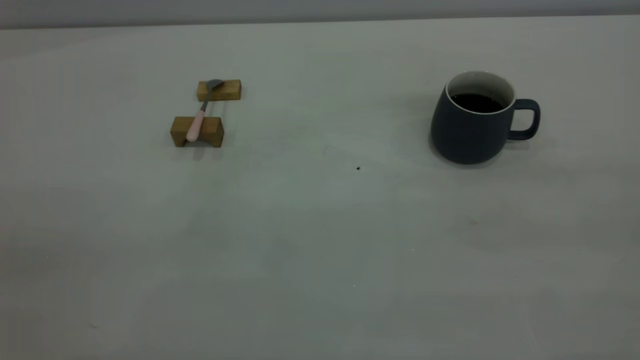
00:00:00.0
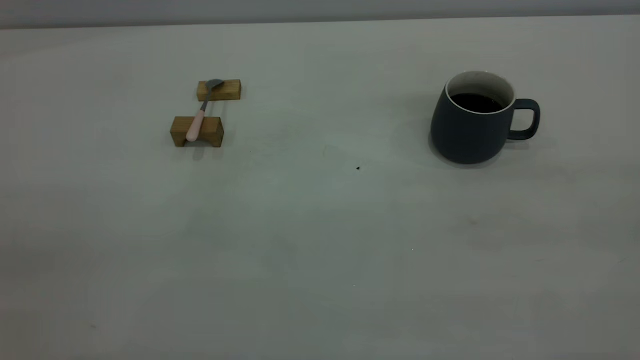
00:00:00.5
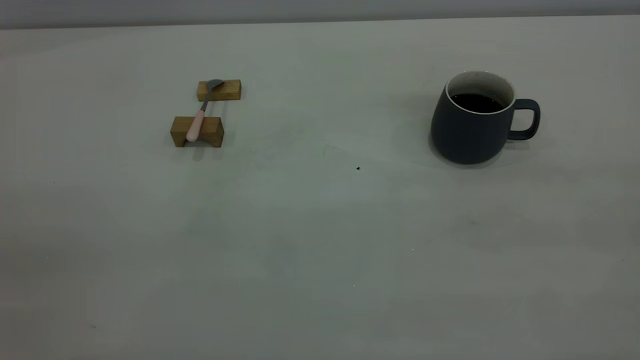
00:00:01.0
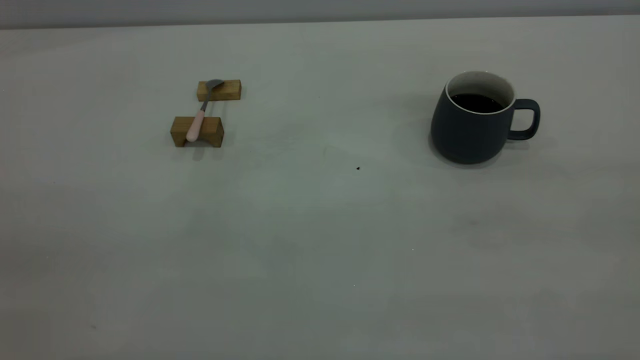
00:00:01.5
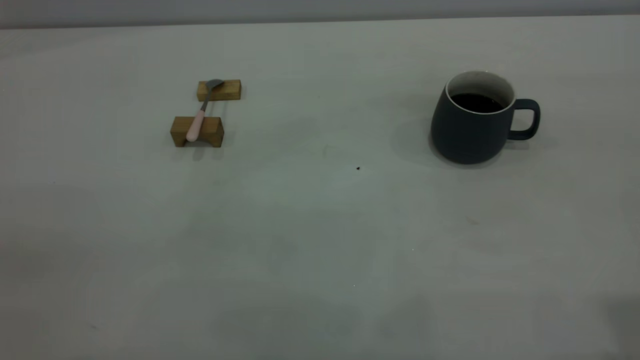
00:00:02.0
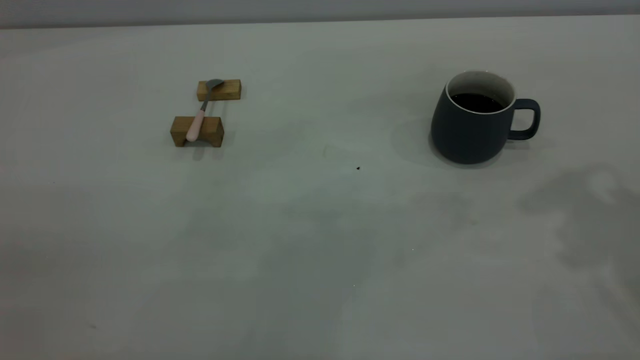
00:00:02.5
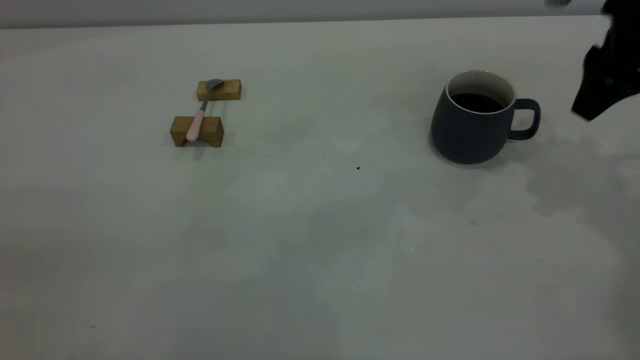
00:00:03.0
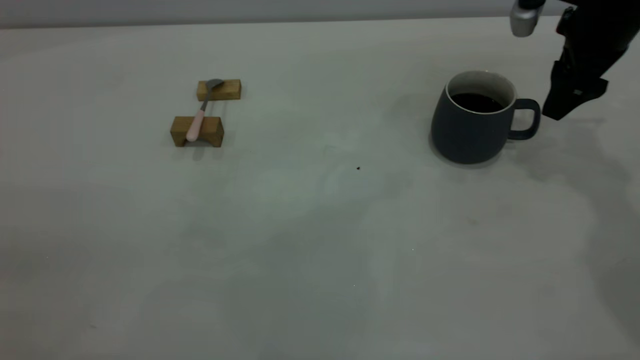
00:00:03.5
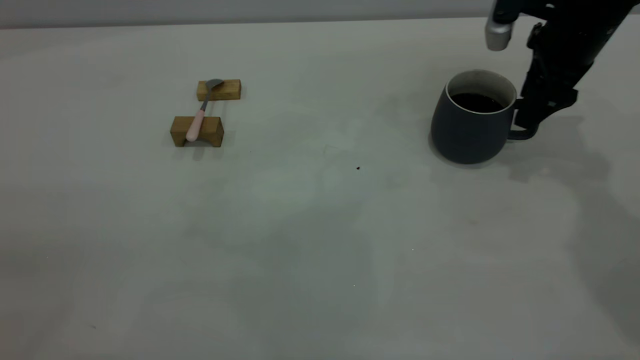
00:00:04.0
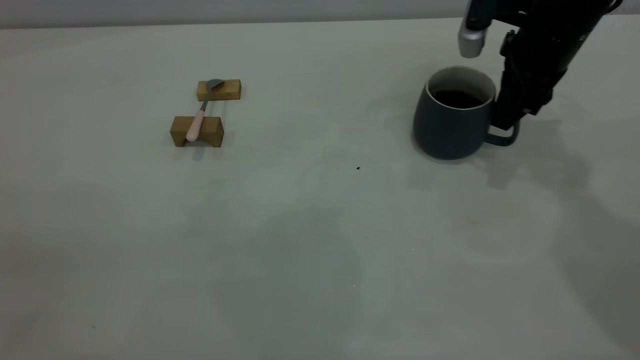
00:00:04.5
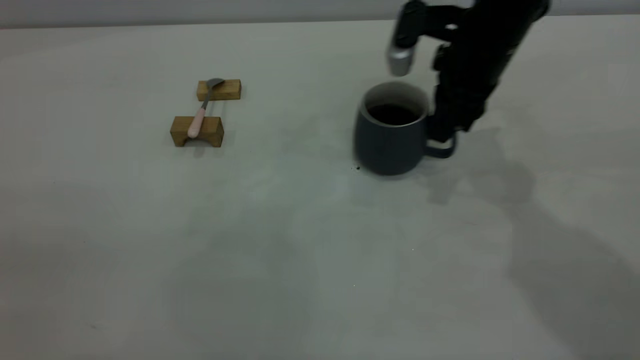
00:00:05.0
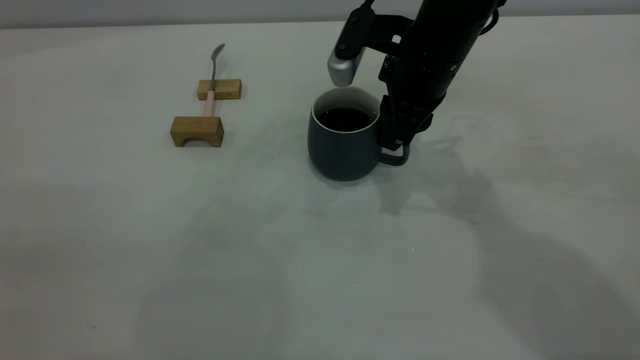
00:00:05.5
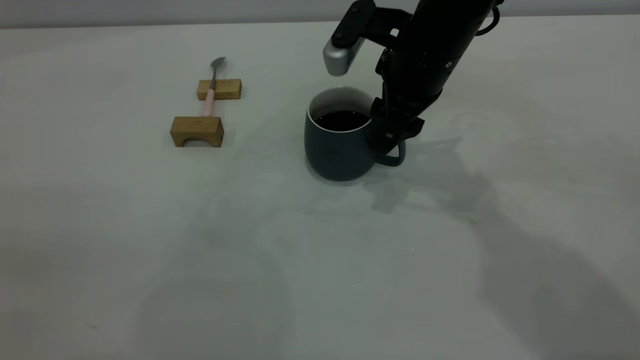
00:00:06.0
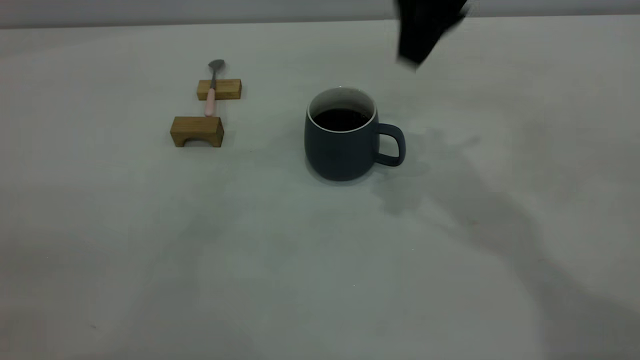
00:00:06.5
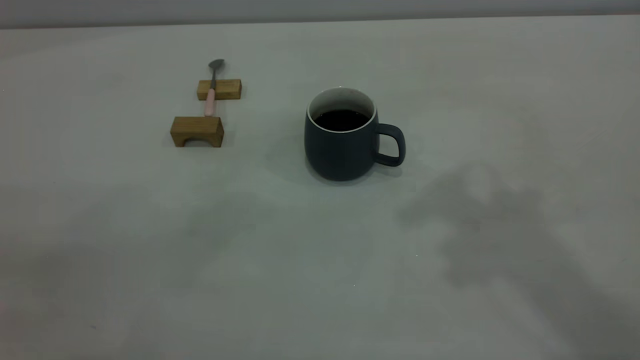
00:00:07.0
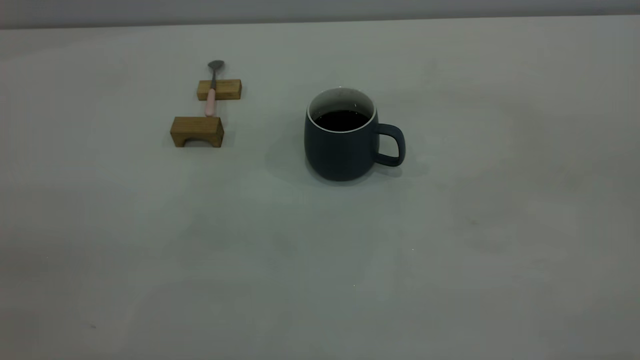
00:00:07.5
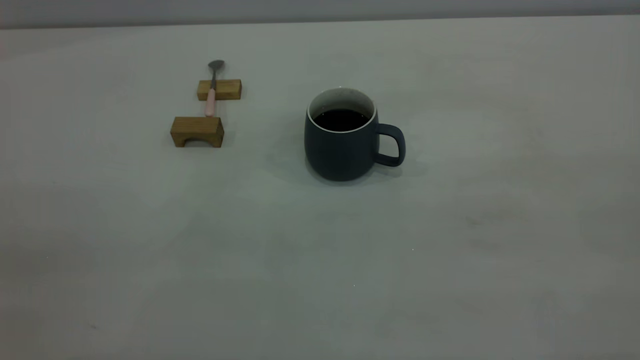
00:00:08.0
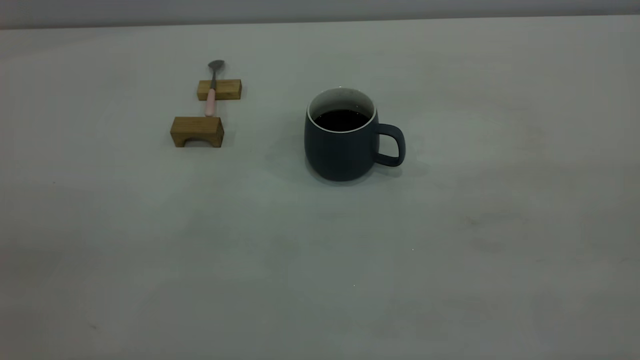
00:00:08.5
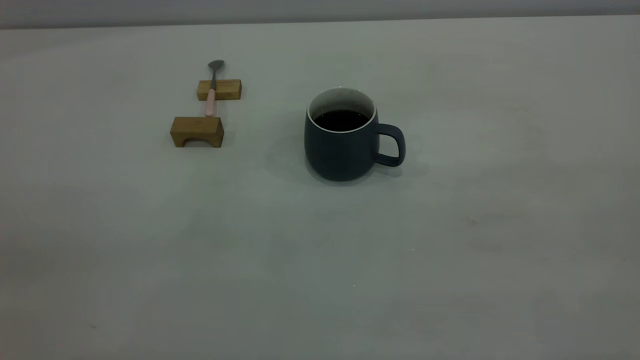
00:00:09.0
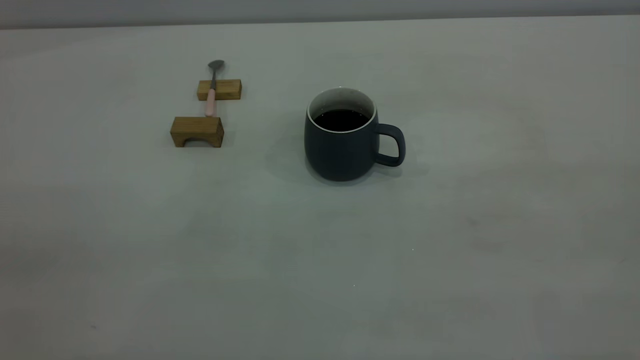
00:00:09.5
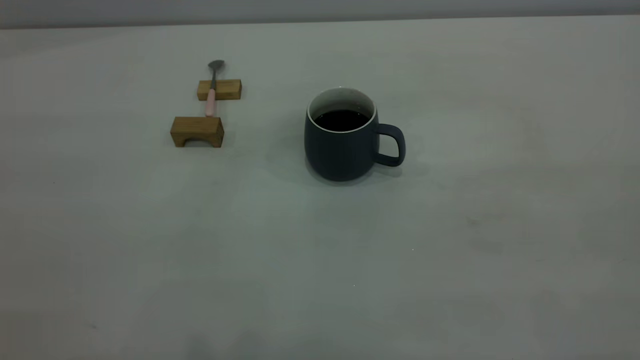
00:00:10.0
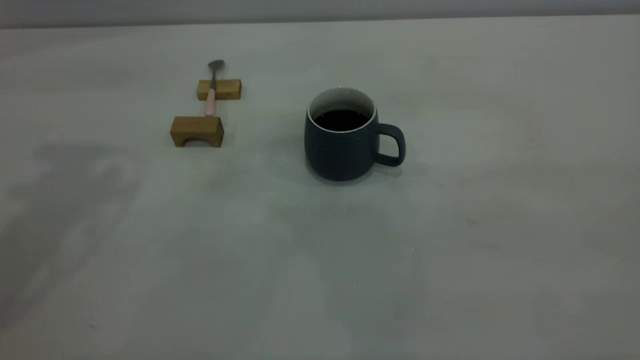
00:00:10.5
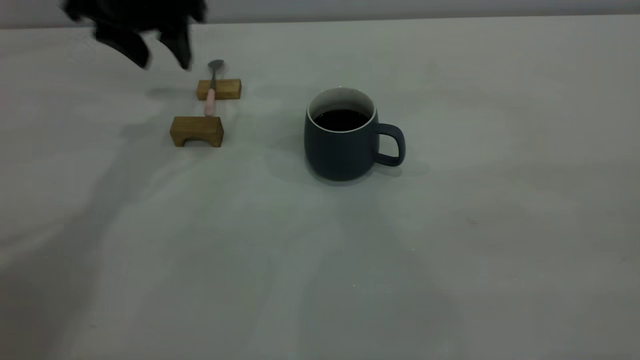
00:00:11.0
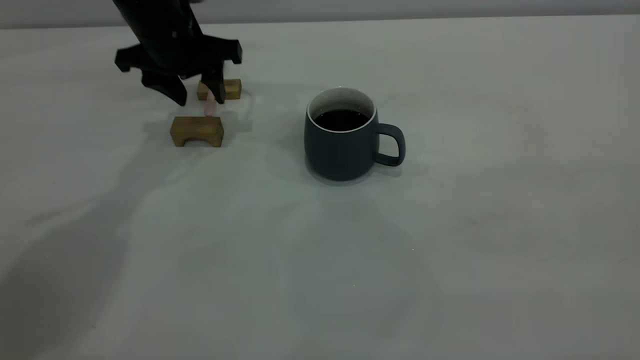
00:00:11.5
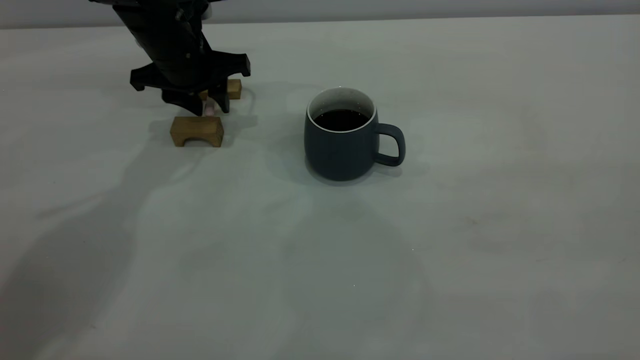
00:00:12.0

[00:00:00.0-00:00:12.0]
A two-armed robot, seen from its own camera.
Step, 00:00:00.0 to 00:00:06.0: Move the cup with coffee to the center of view.
00:00:02.0 to 00:00:04.0: The right gripper goes about 40 cm forward and downward.
00:00:04.0 to 00:00:06.0: The right gripper goes roughly 15 cm to the left, and closes, then reopens.
00:00:06.0 to 00:00:08.0: The right gripper moves backward, upward and to the right, about 50 cm.
00:00:10.0 to 00:00:12.0: The left gripper shifts about 50 cm forward and downward.

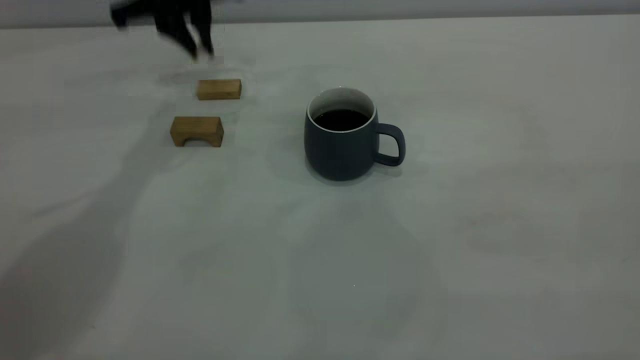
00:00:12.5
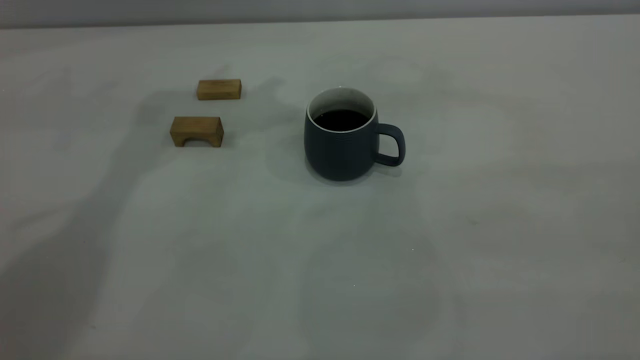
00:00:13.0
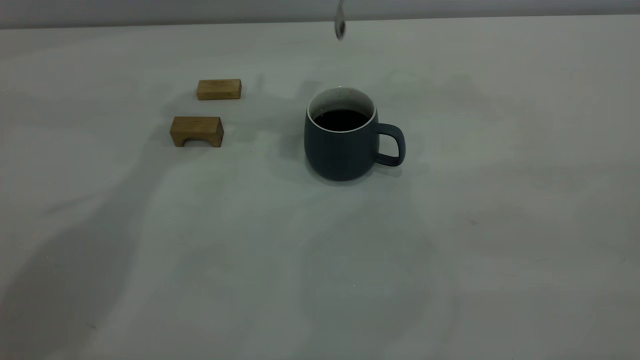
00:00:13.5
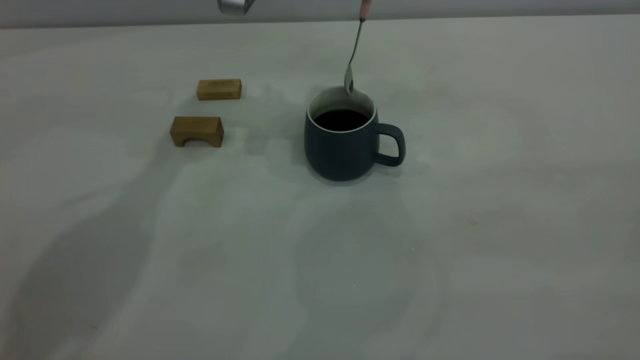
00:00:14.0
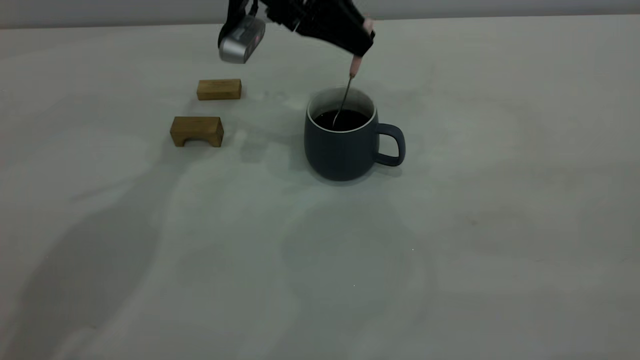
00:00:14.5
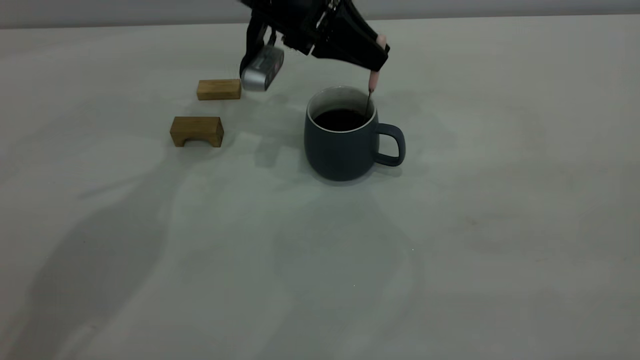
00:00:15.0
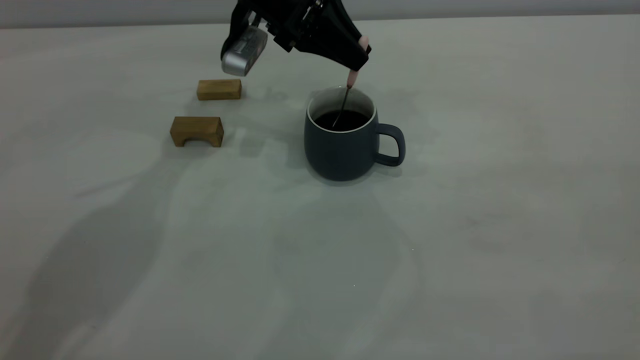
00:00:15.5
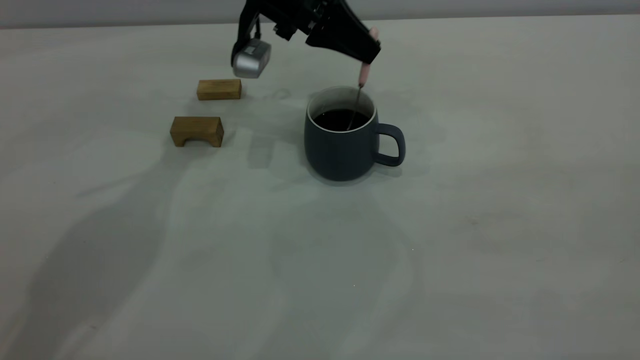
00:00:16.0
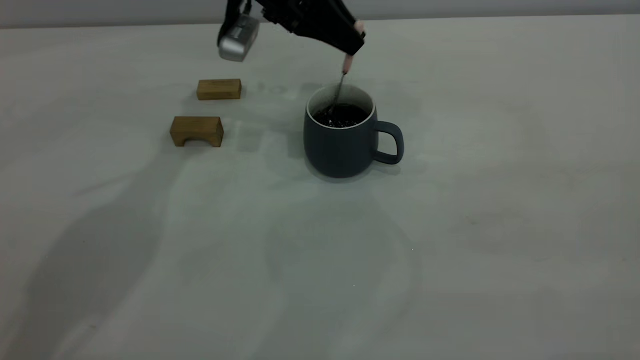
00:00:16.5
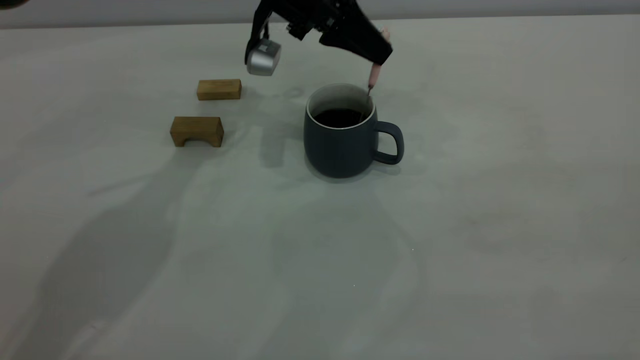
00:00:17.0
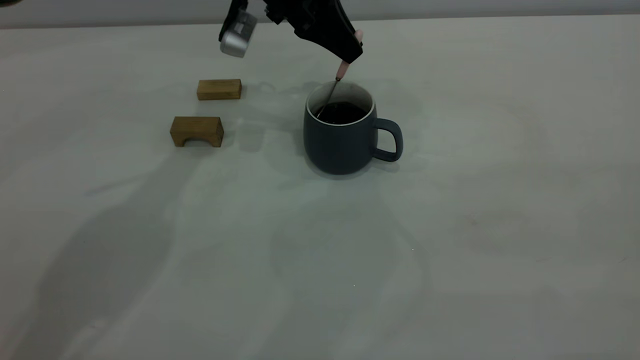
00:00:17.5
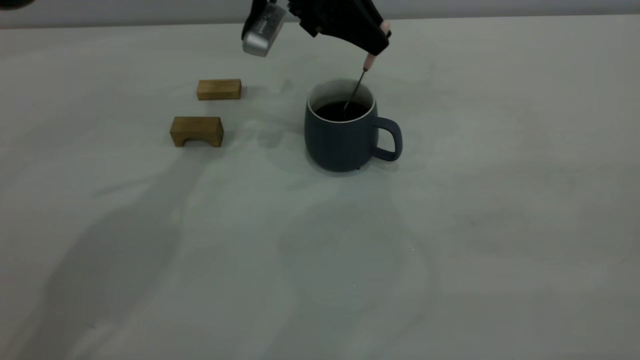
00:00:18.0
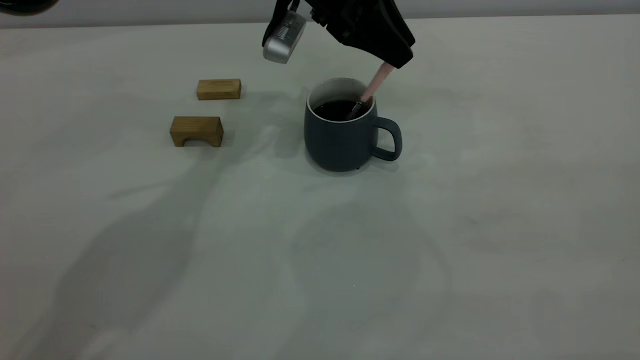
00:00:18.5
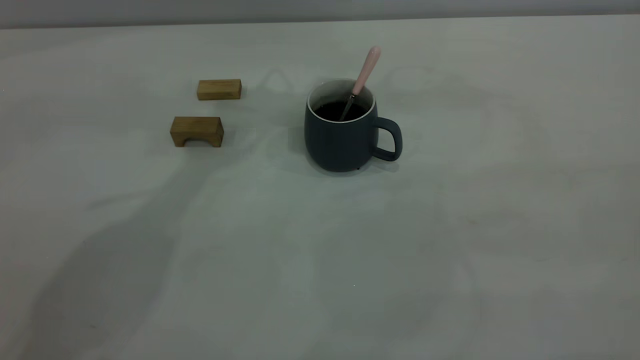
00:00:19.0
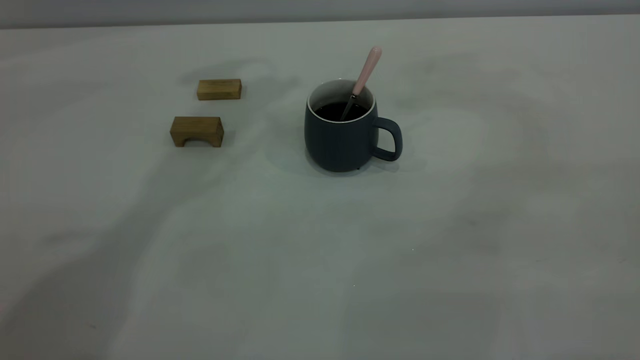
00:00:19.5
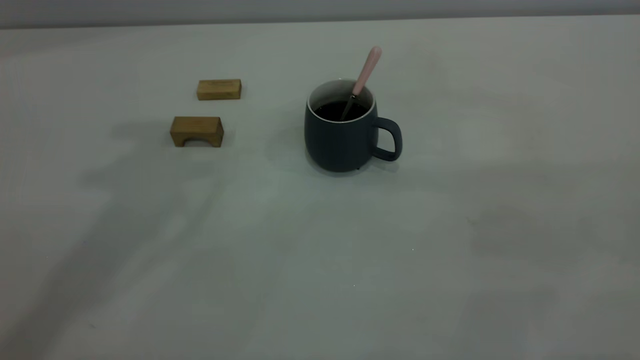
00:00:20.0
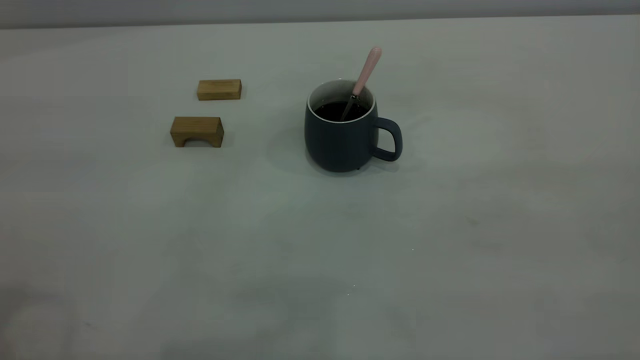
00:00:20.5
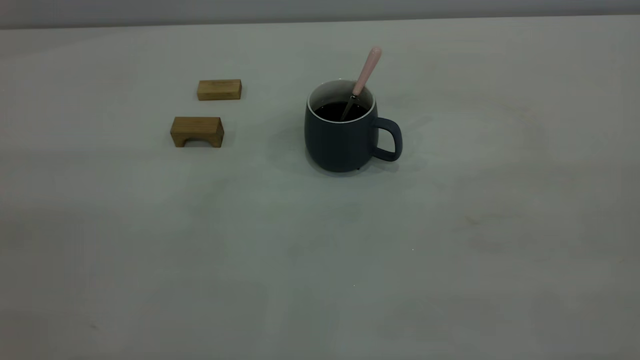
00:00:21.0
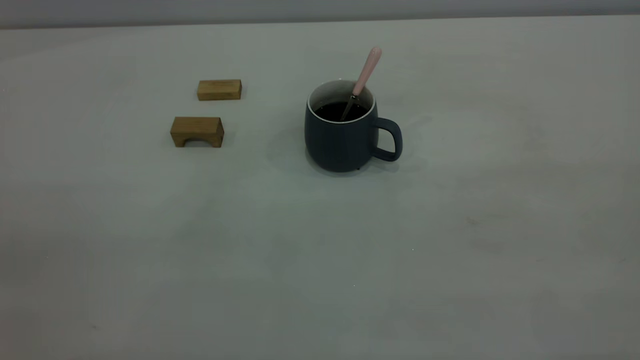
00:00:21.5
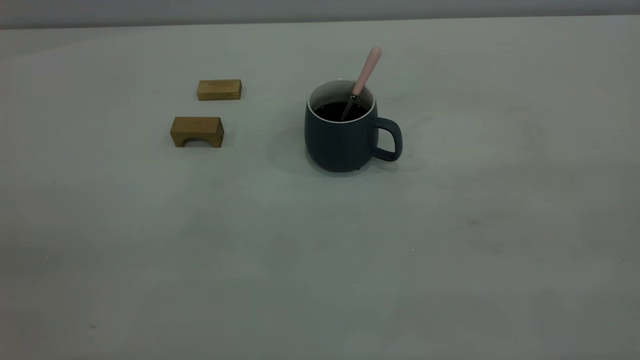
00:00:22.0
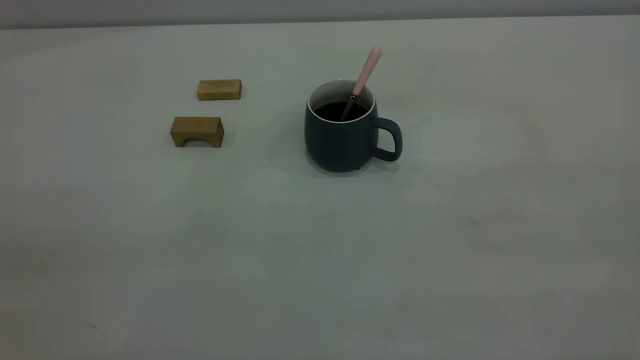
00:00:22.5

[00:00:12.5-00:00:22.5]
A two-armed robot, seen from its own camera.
Step, 00:00:12.5 to 00:00:18.5: Stir the coffee in the cup.
00:00:12.5 to 00:00:14.5: The left gripper goes some 10 cm to the right, and goes upward and returns, approximately 10 cm each way.
00:00:14.5 to 00:00:16.5: The grippers stay close to where they were, moving slightly.
00:00:16.5 to 00:00:18.5: The left gripper is displaced to the right by approximately 5 cm, and opens its fingers.
00:00:18.5 to 00:00:20.5: The left gripper heads backward, to the left and upward, covering about 50 cm.
